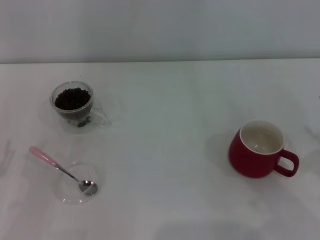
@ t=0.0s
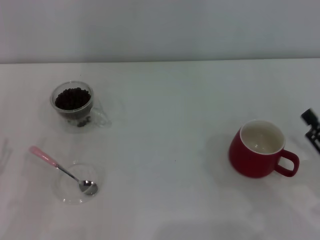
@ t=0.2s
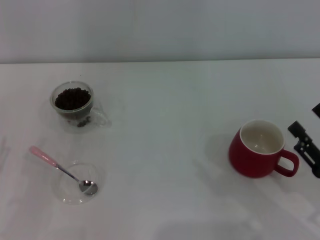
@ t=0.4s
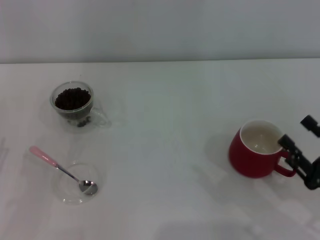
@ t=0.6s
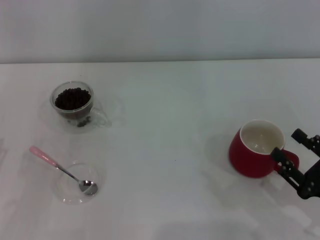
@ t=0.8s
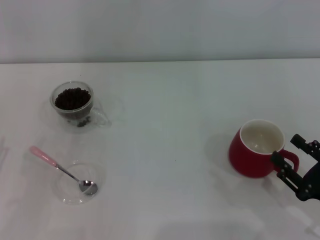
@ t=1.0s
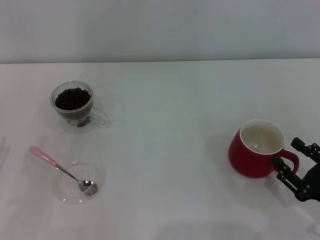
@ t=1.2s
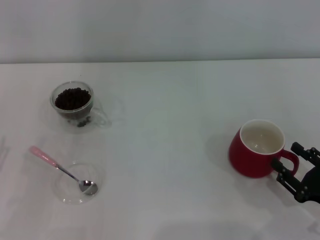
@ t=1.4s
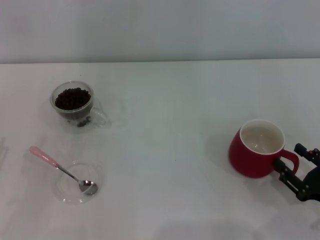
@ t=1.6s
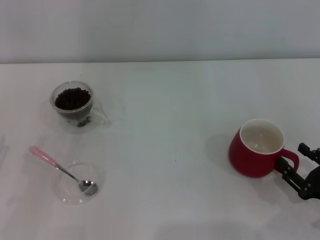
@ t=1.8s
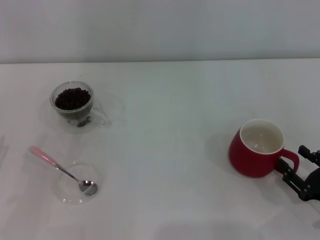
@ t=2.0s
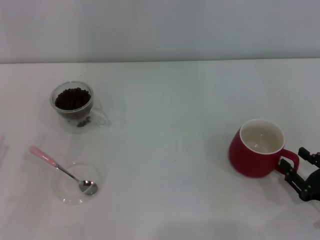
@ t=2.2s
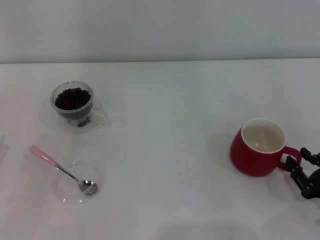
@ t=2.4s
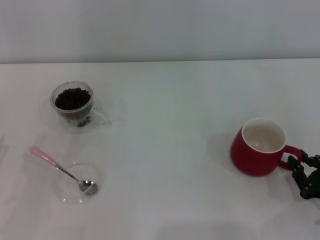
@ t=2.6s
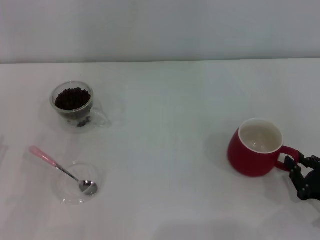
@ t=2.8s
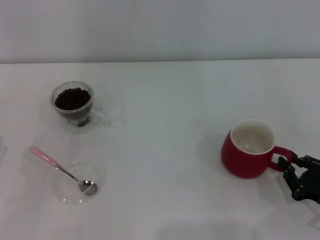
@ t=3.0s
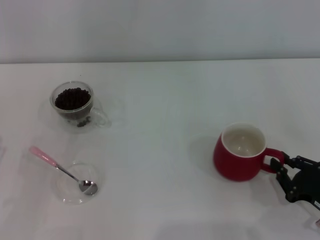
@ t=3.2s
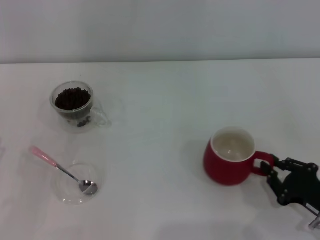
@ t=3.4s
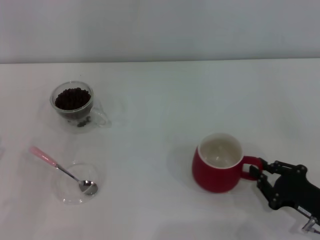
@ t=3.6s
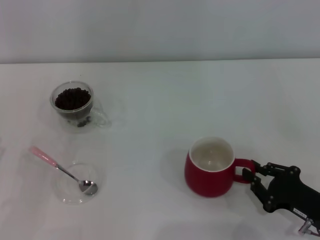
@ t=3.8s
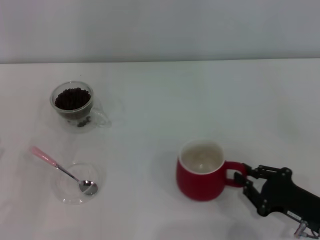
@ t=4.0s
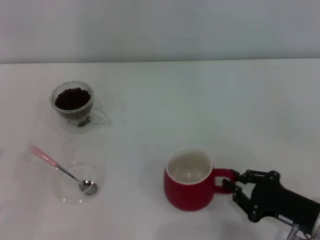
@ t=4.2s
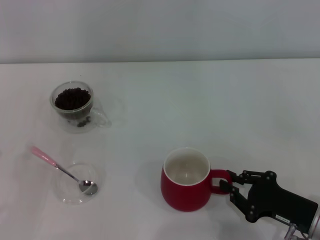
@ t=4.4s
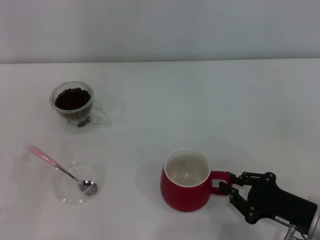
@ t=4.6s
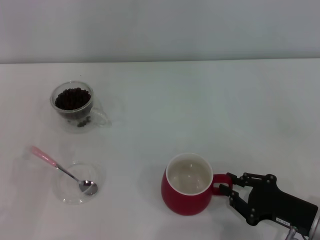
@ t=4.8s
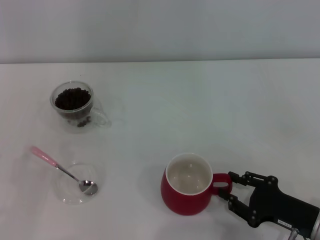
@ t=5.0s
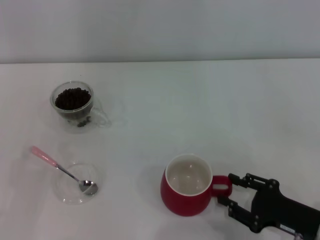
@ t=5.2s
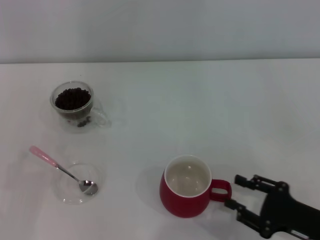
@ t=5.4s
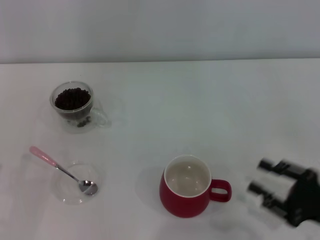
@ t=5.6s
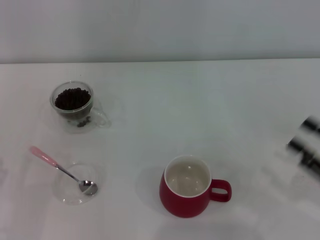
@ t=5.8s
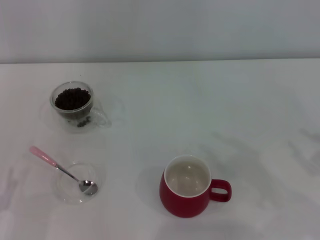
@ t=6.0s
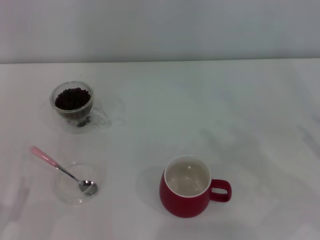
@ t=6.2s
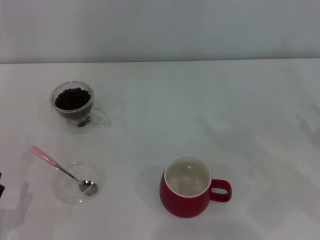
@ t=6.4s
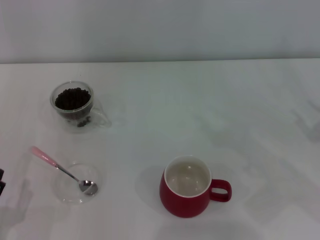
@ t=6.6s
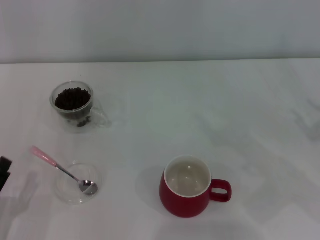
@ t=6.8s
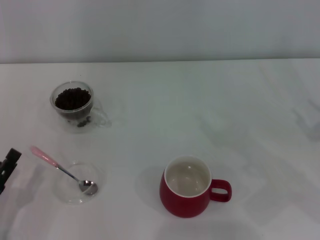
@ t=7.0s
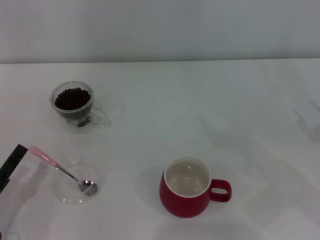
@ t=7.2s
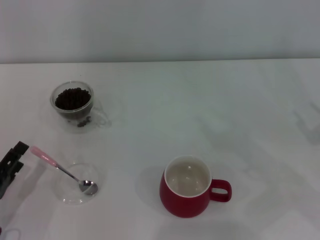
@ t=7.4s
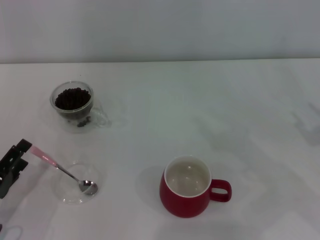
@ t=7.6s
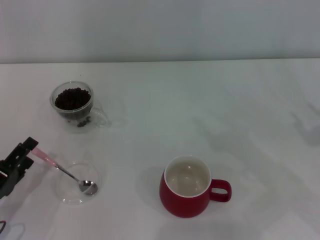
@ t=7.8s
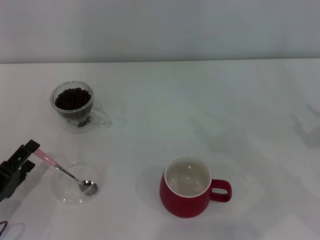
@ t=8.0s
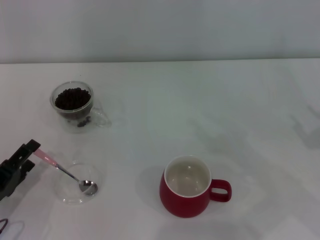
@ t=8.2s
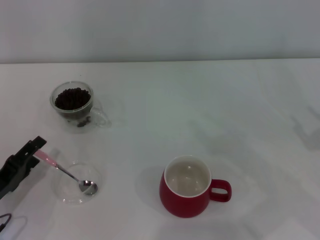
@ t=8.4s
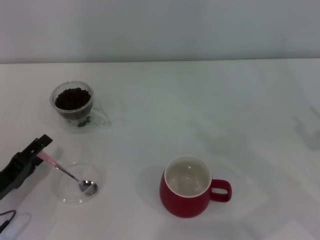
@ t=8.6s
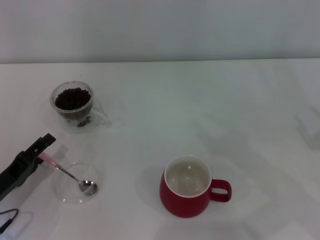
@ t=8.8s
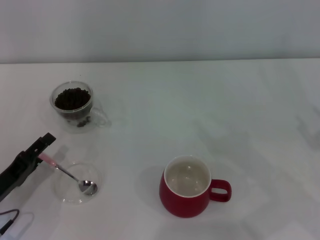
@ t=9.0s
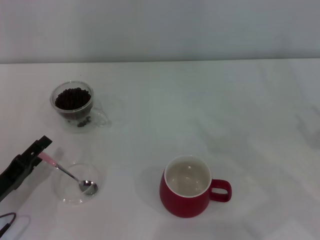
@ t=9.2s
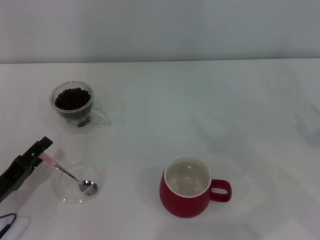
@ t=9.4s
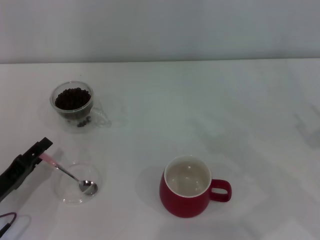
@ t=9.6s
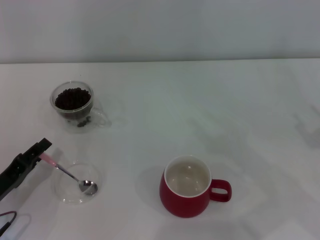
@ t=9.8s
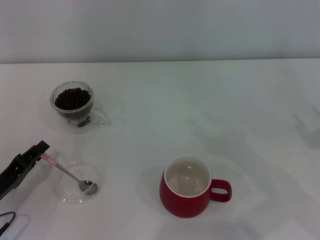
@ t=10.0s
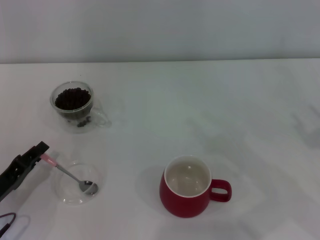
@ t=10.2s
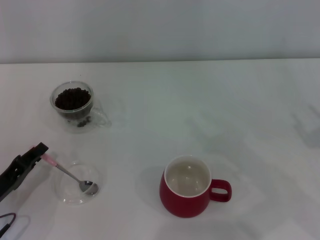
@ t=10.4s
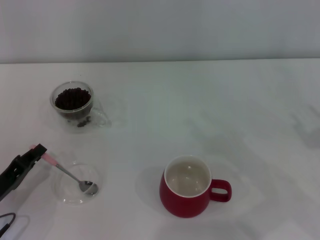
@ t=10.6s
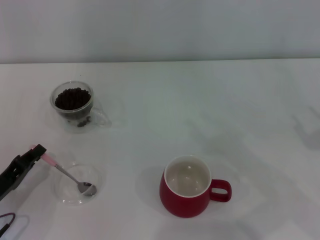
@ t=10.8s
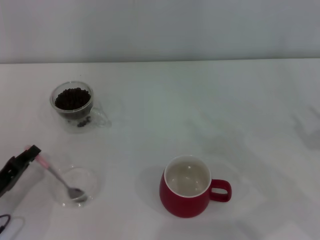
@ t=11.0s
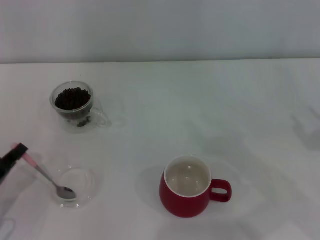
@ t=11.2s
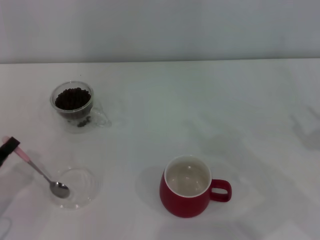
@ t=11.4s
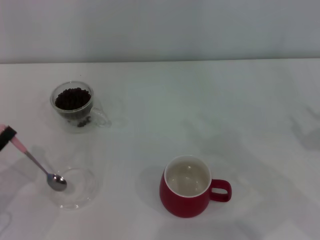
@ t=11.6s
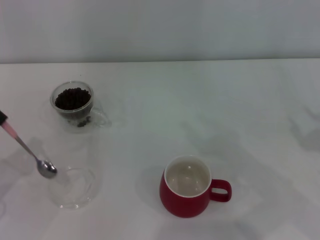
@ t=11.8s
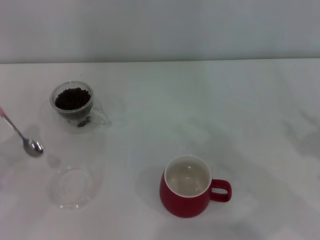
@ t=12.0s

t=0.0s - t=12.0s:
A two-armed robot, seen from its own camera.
Task of the whole recording: Use a pink spoon to take out the coffee beans from the glass and pour them into the red cup.
Step, t=0.0s - t=5.4s: Move the cup to the center of view with the left gripper.
Step, t=5.6s - t=11.8s: Pick up the spoon with the right gripper.
t=0.0s - t=1.6s: The right gripper moves downward, approximately 5 cm.
t=1.6s - t=3.0s: The right gripper closes its fingers.
t=3.0s - t=4.4s: The right gripper moves approximately 5 cm.
t=4.4s - t=6.0s: The left gripper shifts by about 5 cm; the right gripper shifts approximately 15 cm to the right and upward, and opens.
t=6.0s - t=7.6s: The left gripper travels forward by some 5 cm.
t=7.6s - t=9.0s: There are only small adjustments of the grippers.
t=9.0s - t=10.4s: The left gripper closes up.
t=10.4s - t=12.0s: The left gripper shifts about 10 cm upward and to the left.

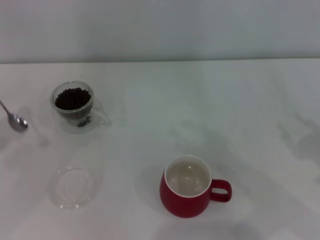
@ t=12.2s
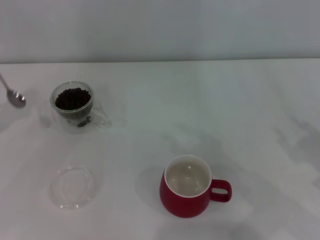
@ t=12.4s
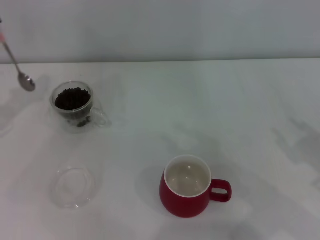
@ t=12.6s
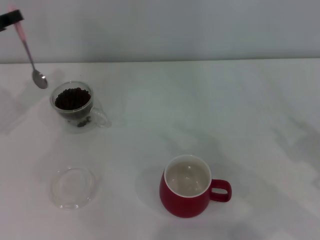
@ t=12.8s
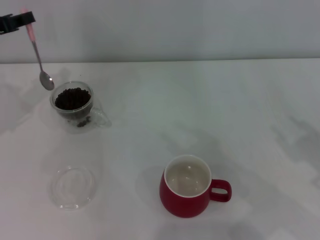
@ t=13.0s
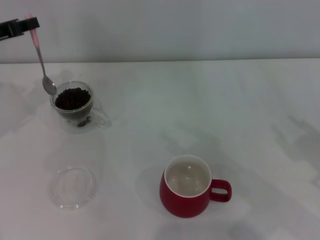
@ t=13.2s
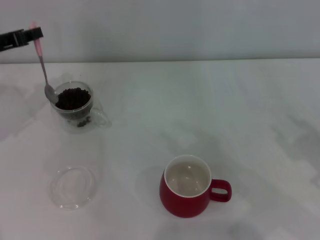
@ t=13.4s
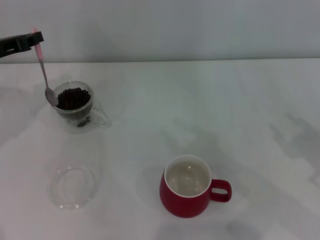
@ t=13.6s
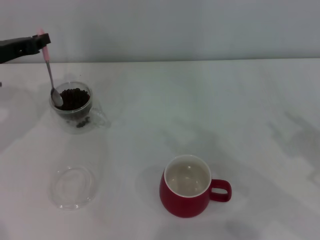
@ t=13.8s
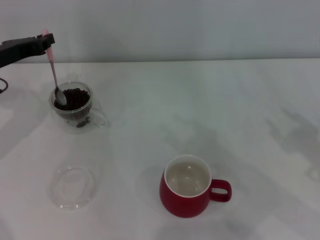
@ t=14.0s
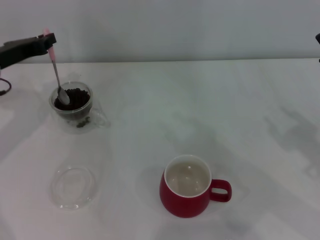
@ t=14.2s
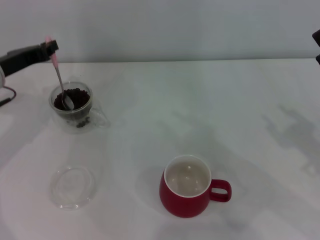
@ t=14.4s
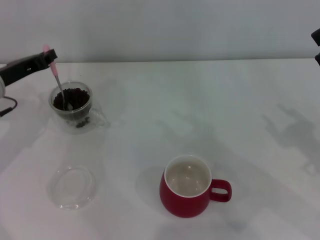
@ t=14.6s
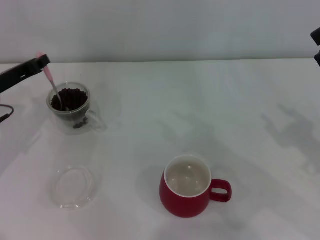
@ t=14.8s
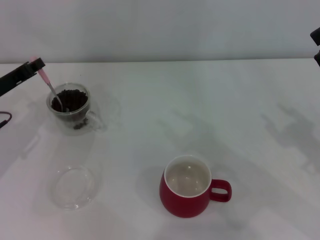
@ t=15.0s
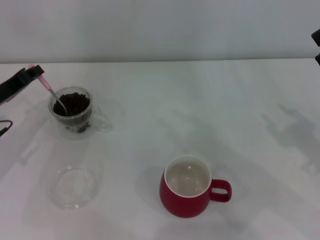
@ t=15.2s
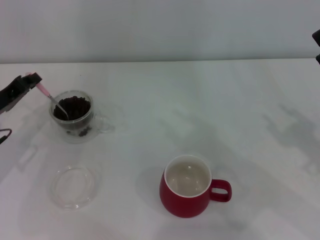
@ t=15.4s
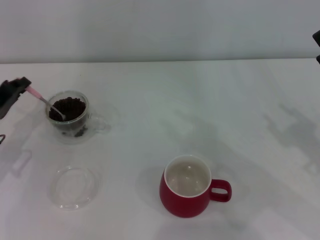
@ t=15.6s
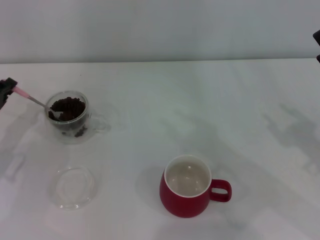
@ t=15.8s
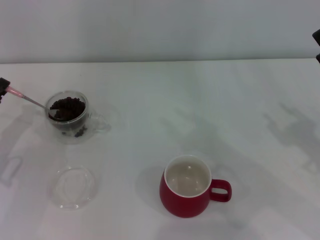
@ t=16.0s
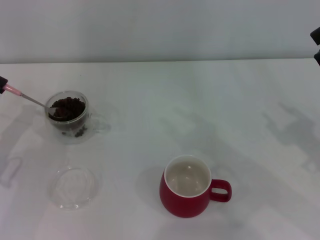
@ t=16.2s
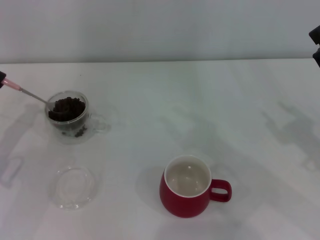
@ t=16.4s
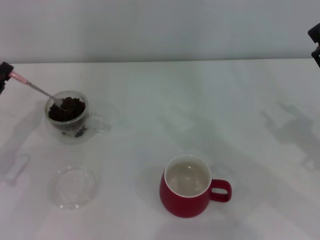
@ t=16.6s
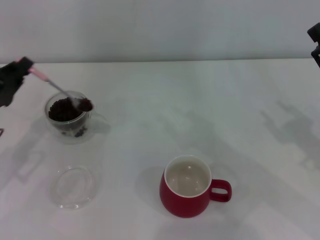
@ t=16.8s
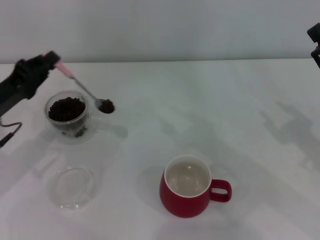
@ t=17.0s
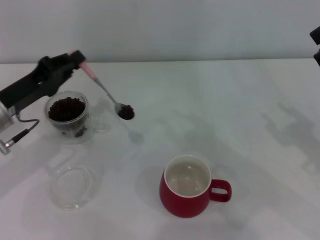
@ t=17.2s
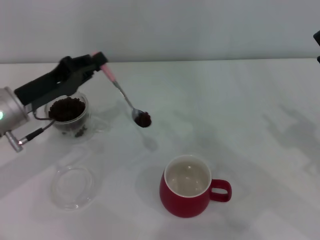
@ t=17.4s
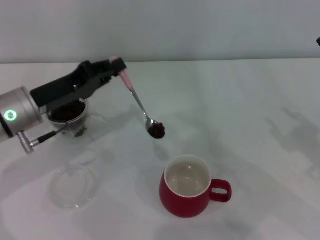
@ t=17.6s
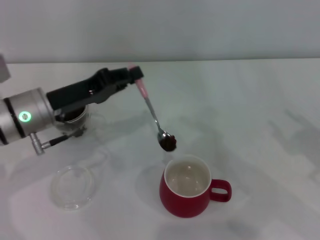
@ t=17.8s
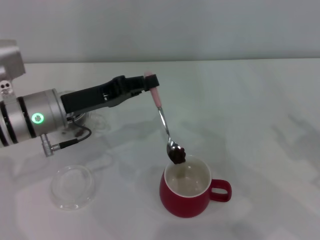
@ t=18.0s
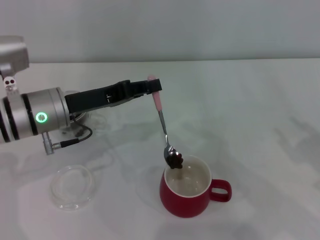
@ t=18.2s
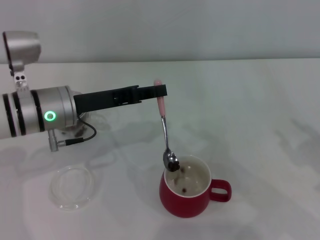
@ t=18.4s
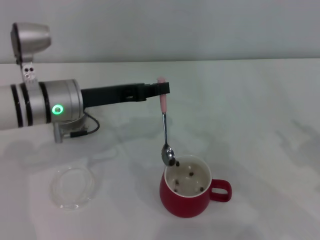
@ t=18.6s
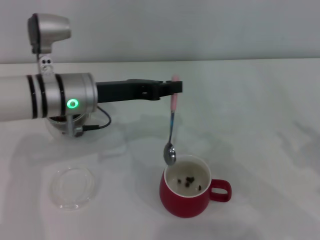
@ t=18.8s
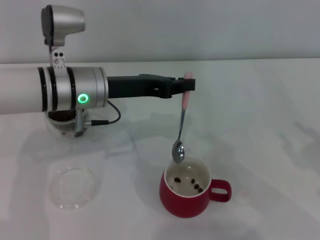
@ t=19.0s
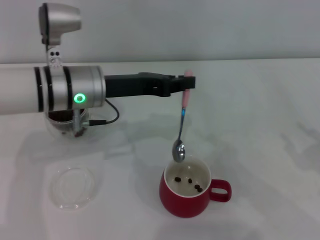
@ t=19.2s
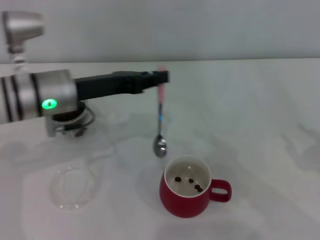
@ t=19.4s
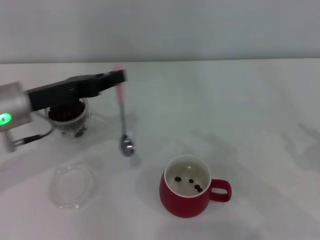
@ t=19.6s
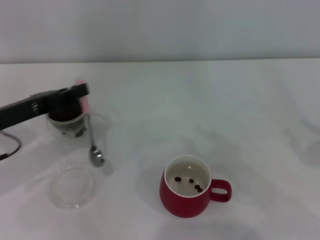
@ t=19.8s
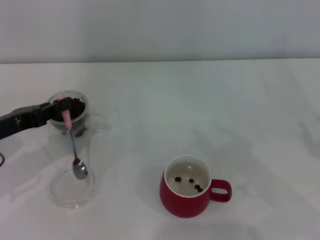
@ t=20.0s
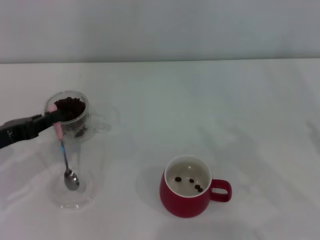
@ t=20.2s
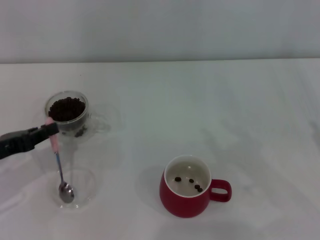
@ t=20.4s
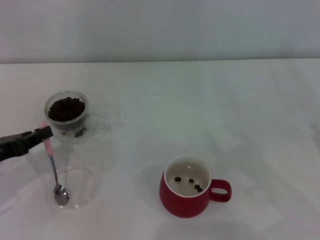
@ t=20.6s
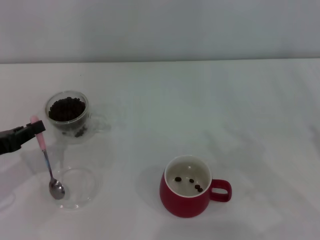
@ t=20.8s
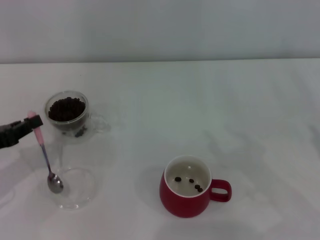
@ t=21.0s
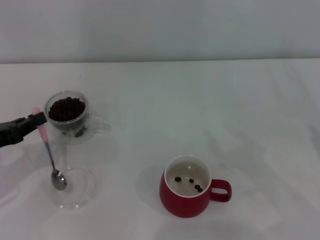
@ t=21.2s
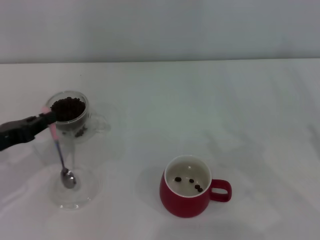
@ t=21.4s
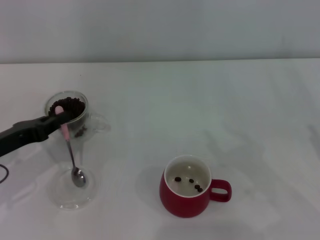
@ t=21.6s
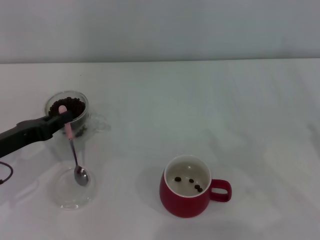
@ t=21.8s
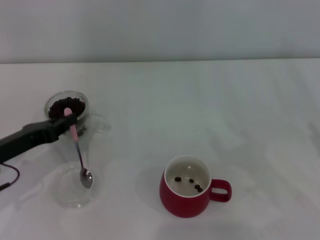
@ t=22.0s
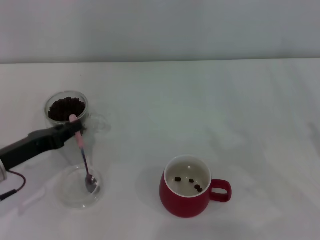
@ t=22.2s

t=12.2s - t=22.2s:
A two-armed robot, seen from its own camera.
Task of the whole recording: Use a pink spoon to take out the coffee beans from the glass and pour them into the red cup.
Step, t=12.2s - t=19.2s: Scoop a spoonful of beans into the cup with the right gripper.
t=12.2s - t=13.6s: The left gripper moves forward and to the right, some 15 cm.
t=13.6s - t=15.0s: The left gripper travels downward by about 5 cm.
t=15.0s - t=16.4s: The left gripper travels backward by approximately 5 cm.
t=16.4s - t=18.0s: The left gripper travels to the right by approximately 15 cm.
t=19.4s - t=20.8s: The left gripper goes some 20 cm to the left and backward.
t=20.8s - t=22.2s: The left gripper travels to the right by about 5 cm.
